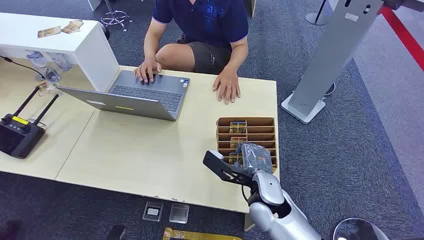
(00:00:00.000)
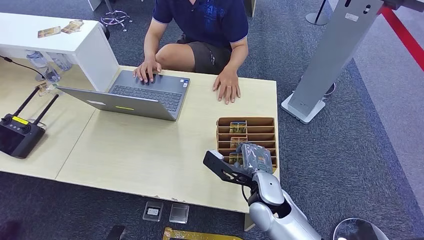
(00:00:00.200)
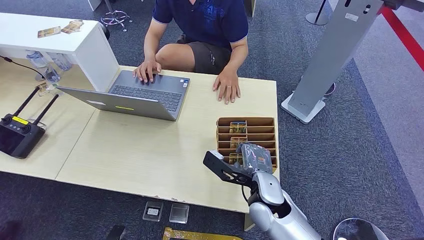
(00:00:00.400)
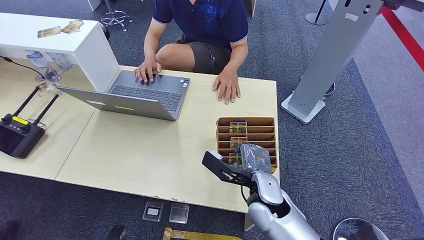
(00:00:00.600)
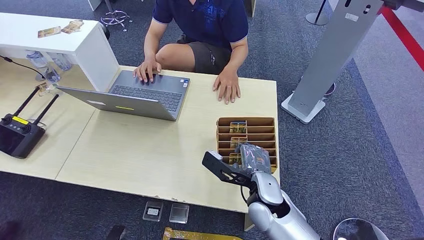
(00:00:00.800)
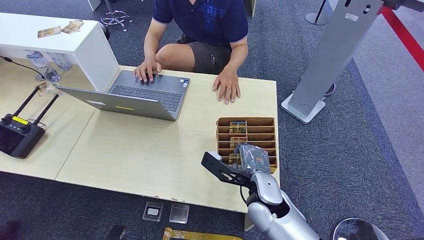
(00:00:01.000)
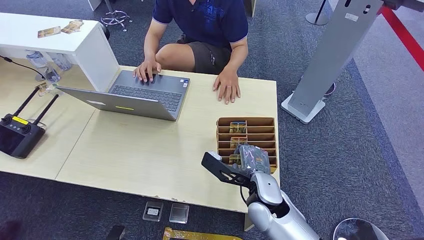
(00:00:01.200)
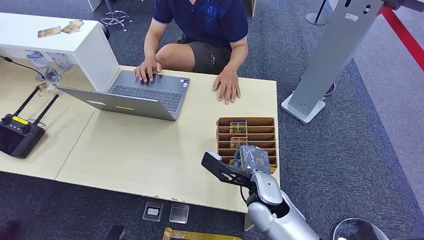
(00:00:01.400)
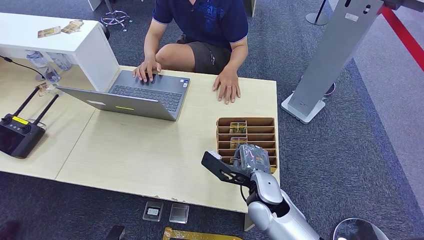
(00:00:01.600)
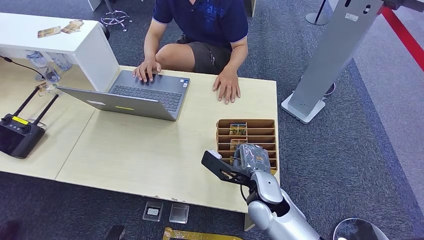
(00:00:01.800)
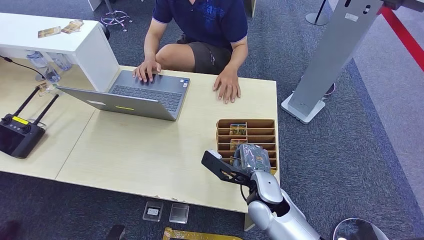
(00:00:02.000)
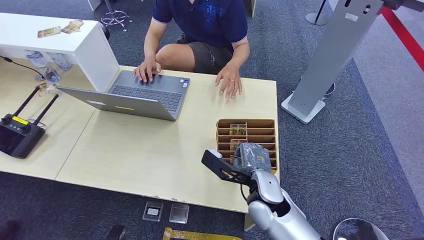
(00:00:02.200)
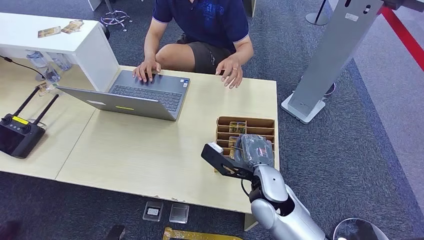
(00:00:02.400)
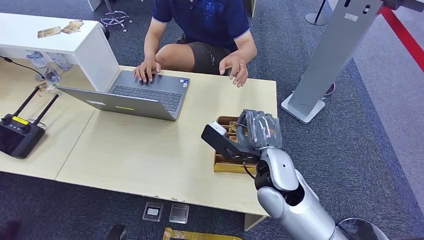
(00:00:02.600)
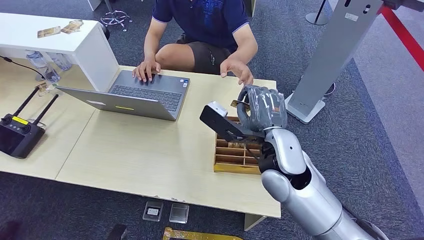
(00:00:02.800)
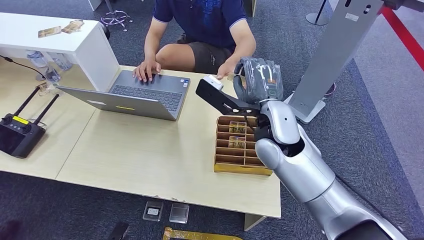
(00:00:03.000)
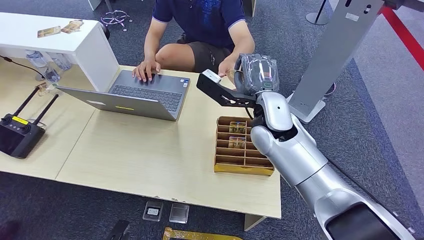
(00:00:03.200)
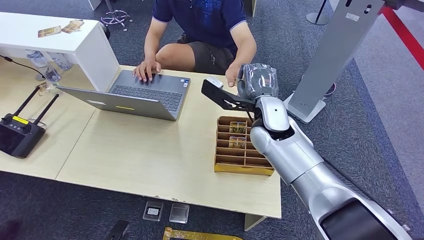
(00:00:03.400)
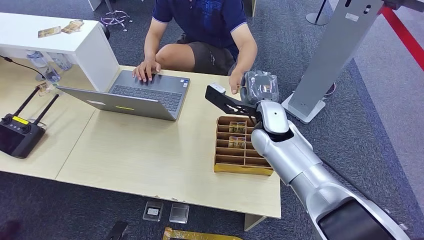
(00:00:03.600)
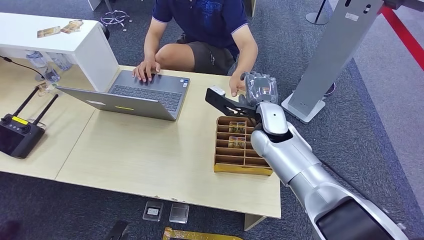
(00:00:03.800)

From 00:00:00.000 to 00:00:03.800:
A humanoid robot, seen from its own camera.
Step, from 00:00:00.000 to 00:00:02.200: Pick up the key card from the card box.
Step, from 00:00:02.800 to 00:00:03.800: Hand the key card to the target.
From 00:00:01.200 to 00:00:02.600: The right hand travels upward by approximately 10 cm.
From 00:00:02.600 to 00:00:03.800: The right hand moves forward, about 10 cm.
